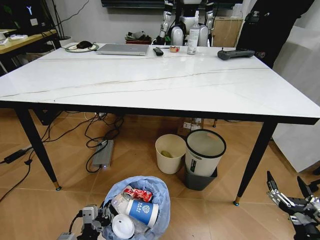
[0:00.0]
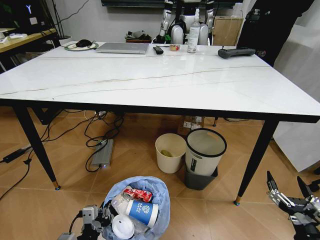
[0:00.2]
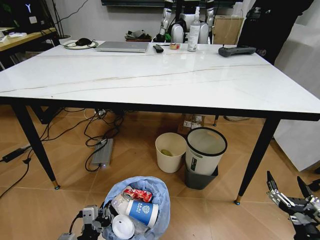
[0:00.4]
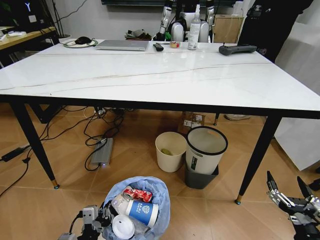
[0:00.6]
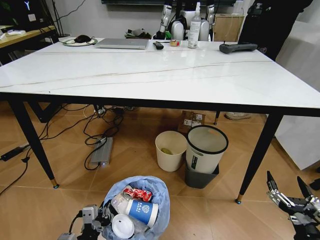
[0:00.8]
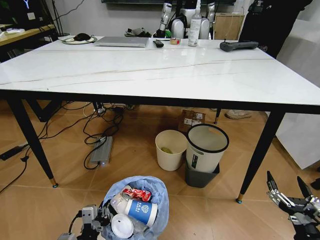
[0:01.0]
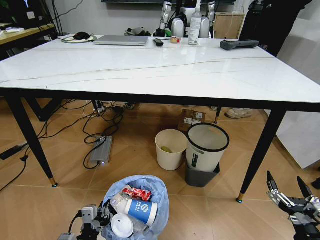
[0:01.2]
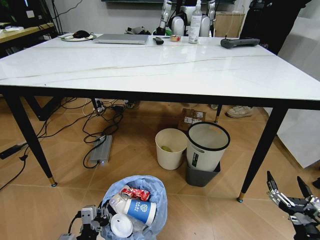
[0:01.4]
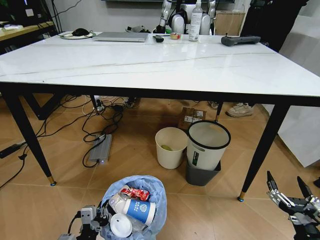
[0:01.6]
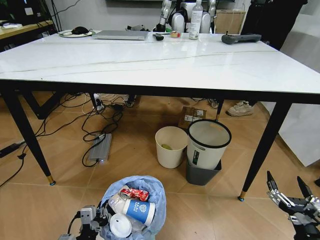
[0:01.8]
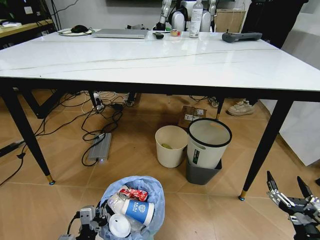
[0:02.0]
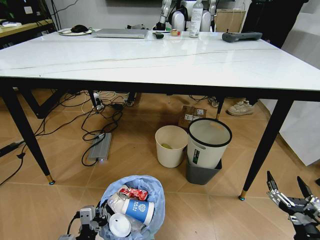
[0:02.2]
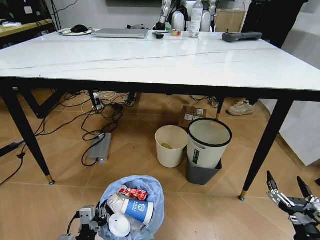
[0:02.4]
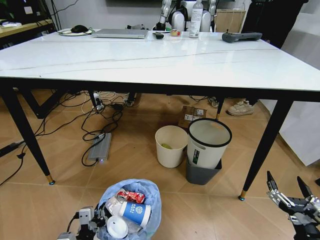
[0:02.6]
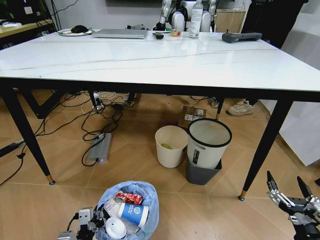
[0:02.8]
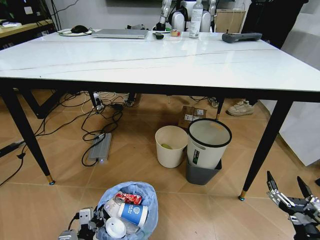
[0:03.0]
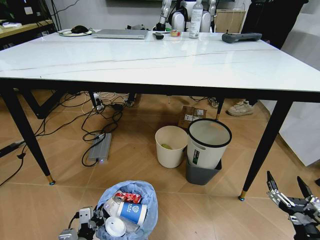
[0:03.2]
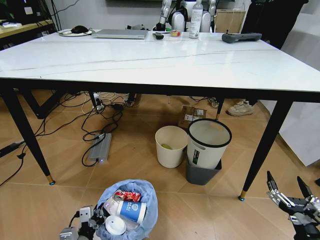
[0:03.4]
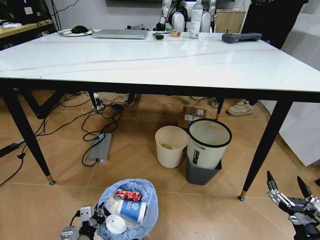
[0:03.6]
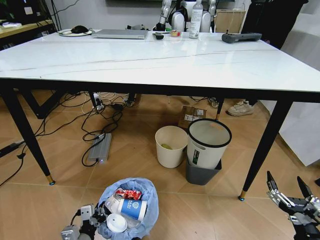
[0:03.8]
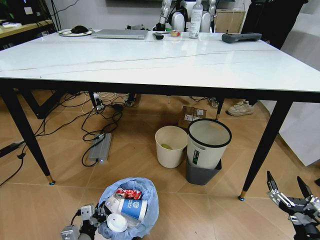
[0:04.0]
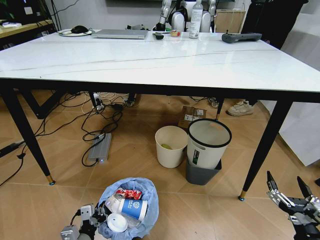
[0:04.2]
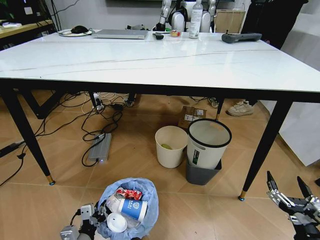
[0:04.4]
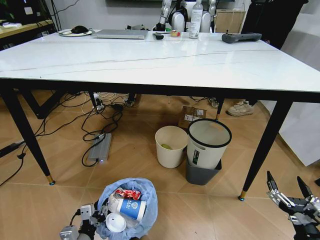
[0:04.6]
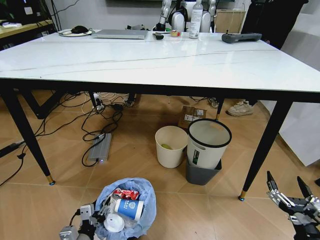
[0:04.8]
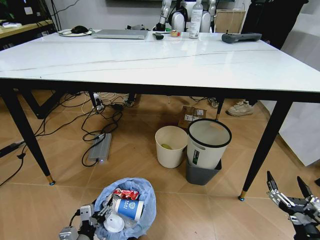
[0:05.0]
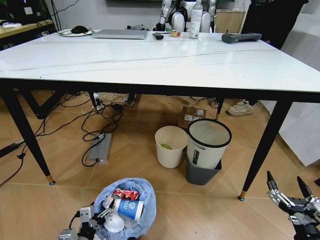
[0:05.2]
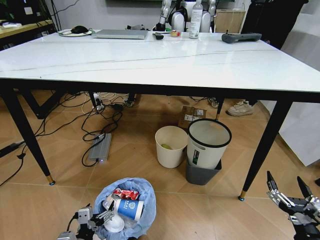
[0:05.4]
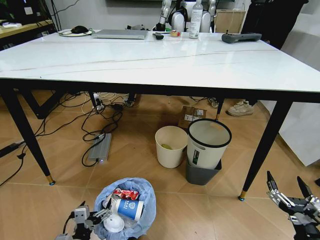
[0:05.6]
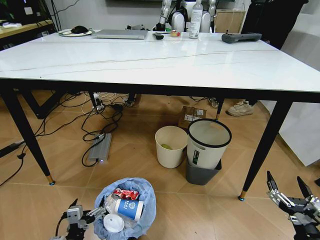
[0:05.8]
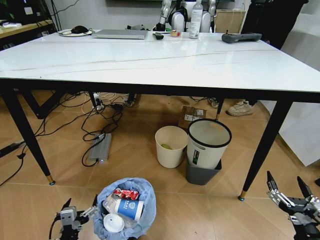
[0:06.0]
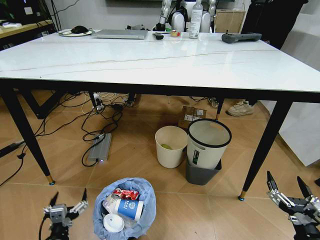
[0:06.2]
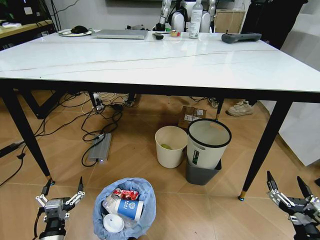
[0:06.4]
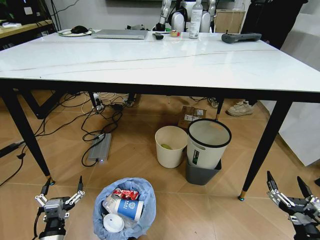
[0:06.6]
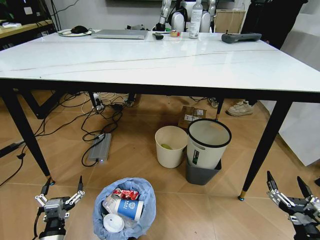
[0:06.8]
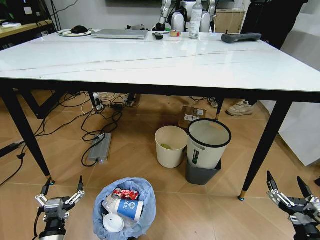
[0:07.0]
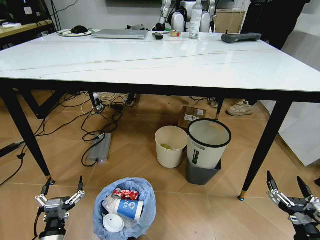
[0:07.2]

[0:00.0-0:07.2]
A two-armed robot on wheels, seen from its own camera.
Task of the whole recording: Pick up the trash bin and place the trash from the table into it.
0:02.8 to 0:04.4: There are only small adjustments of the grippers.
0:04.4 to 0:05.8: The left gripper opens up.
